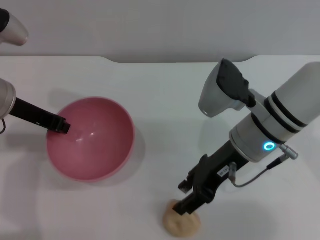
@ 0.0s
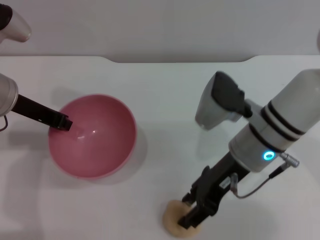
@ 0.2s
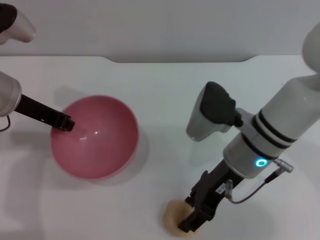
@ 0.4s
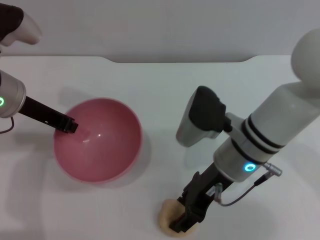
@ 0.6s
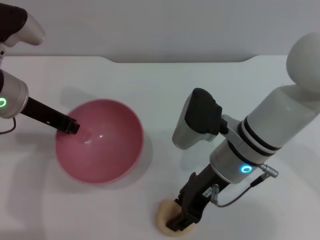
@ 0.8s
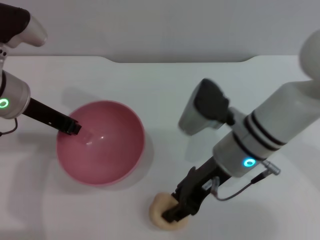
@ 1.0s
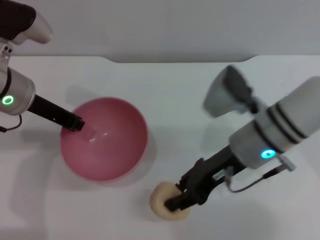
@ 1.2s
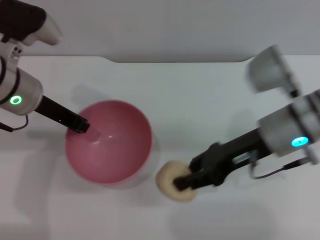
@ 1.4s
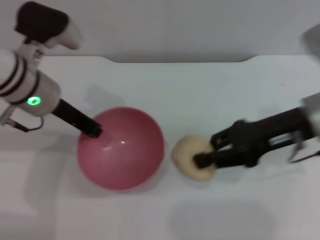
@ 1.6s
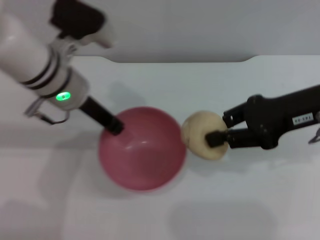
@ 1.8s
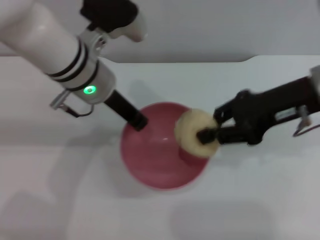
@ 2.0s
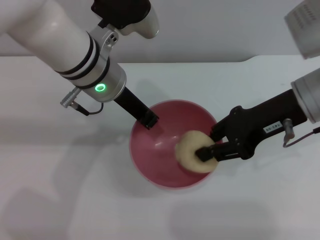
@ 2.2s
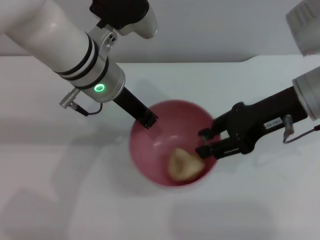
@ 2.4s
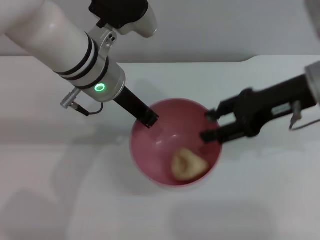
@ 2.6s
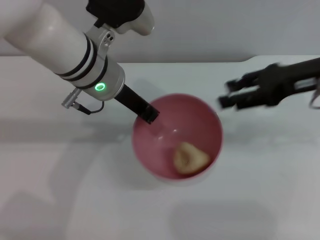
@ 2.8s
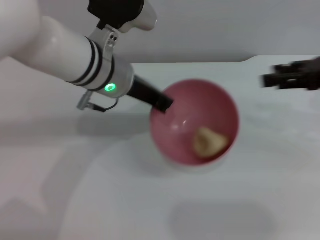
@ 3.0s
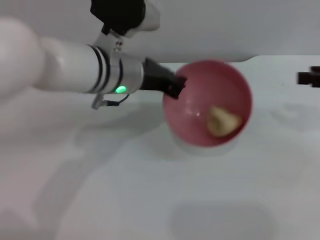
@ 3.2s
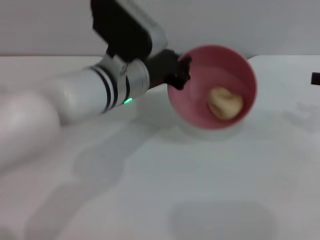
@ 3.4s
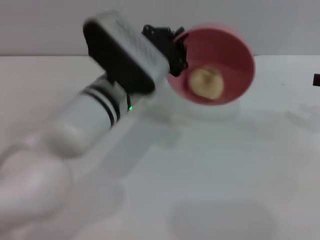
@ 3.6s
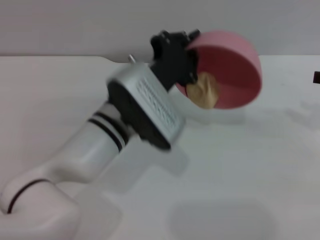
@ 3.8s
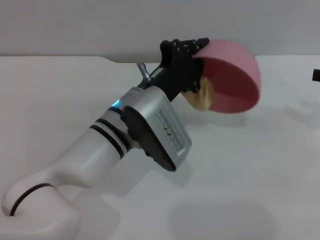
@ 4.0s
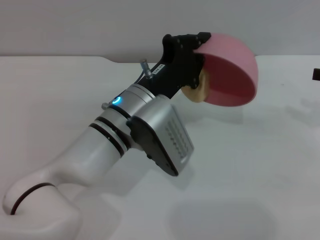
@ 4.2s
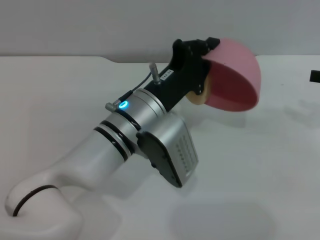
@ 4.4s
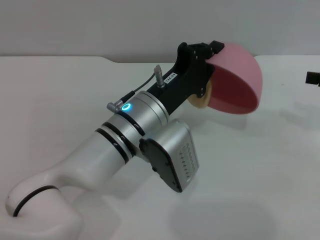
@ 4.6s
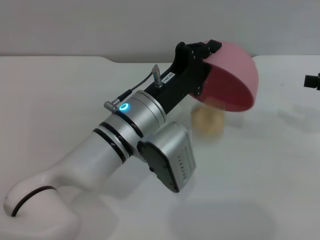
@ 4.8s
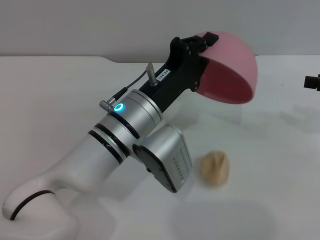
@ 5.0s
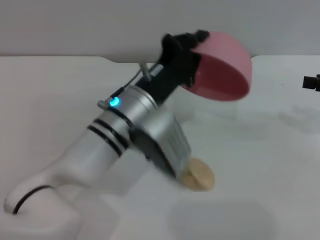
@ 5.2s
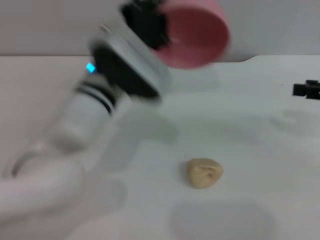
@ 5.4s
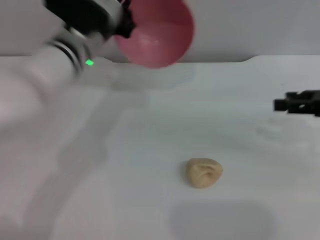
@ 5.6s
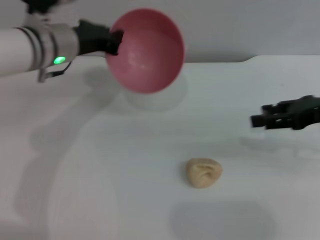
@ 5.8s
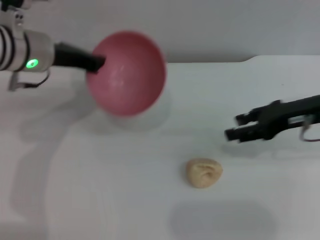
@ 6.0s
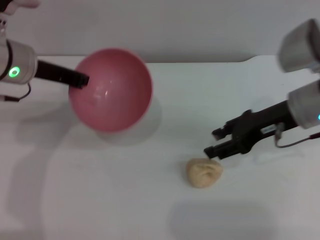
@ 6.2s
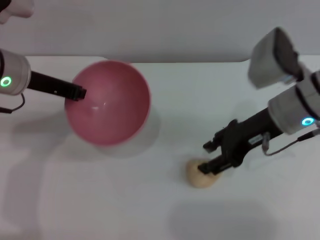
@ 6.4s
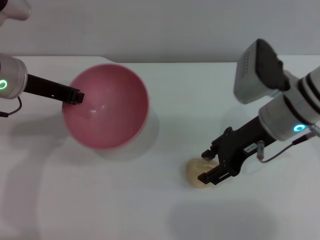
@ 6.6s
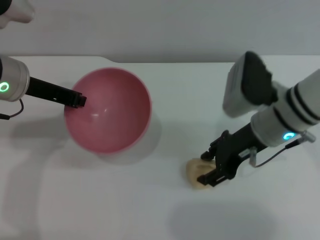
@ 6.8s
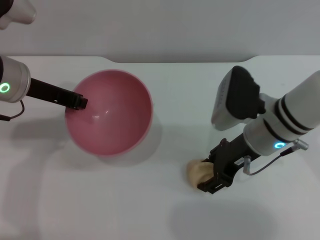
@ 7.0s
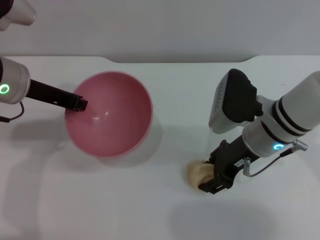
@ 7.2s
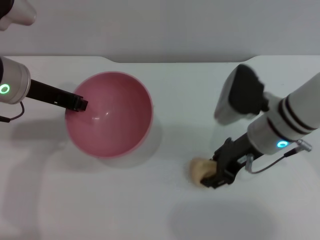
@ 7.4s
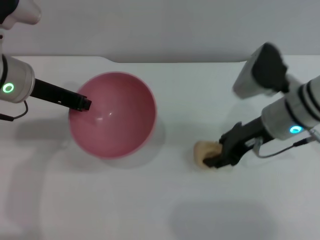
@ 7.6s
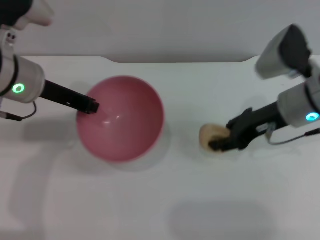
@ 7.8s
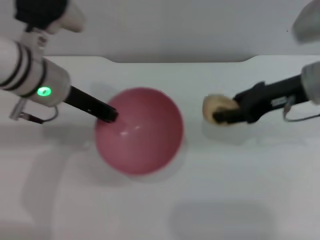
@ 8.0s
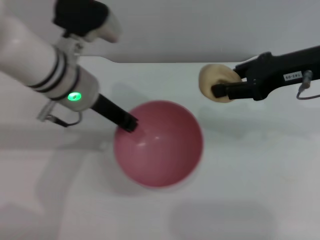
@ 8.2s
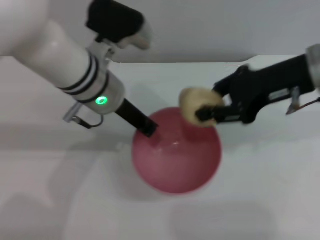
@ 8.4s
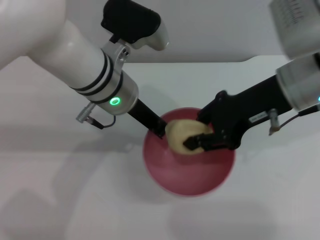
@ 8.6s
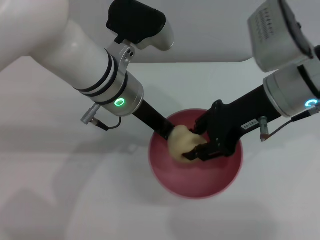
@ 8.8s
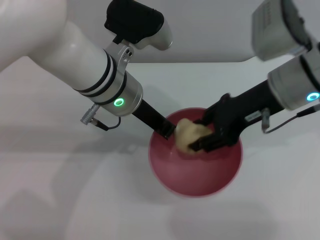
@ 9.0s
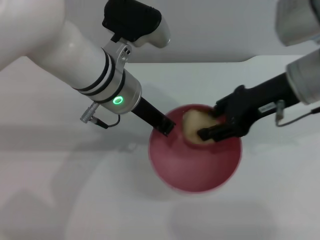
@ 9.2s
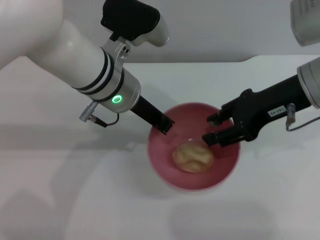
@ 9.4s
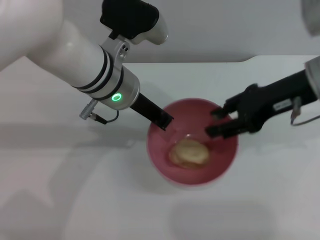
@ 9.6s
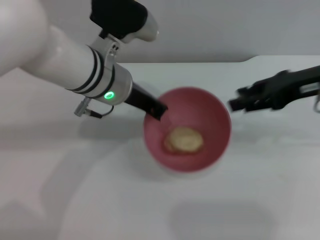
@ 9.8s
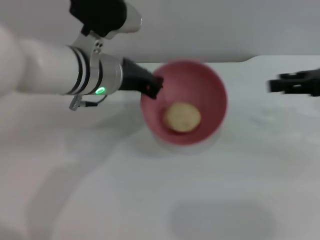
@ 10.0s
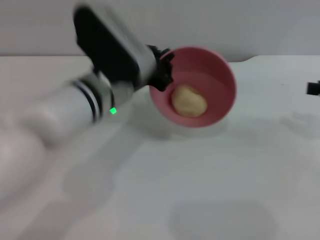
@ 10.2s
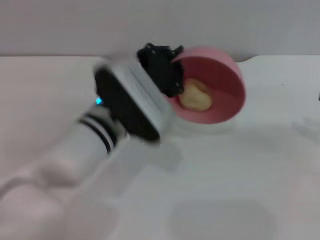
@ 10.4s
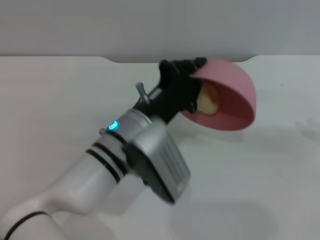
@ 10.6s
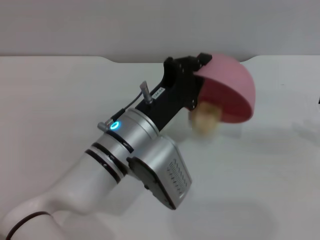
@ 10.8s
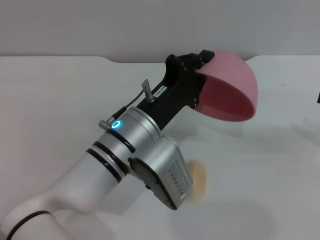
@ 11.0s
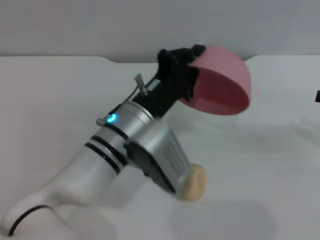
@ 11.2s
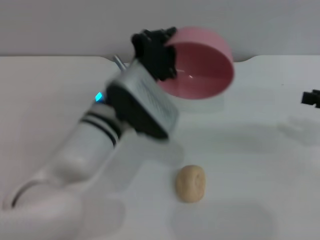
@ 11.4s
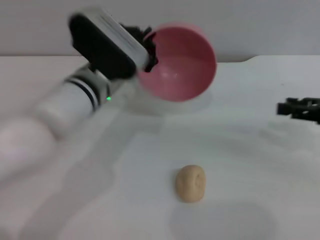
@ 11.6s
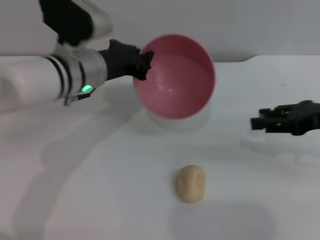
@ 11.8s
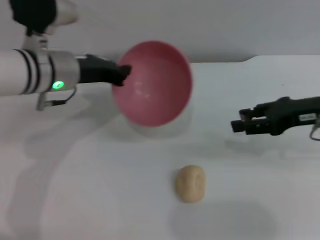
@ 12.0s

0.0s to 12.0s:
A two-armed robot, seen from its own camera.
Task of the whole recording: put the egg yolk pastry into the pink bowl and pour it out repeatedly.
Step, 1.4s to 2.8s: Place the bread into the bowl.
Step, 3.0s to 5.2s: Pour the bread out of the bowl.
Step, 5.4s to 7.6s: Pick up the bread with the right gripper.
Step, 8.0s to 9.6s: Place the bread into the bowl.
Step, 10.0s to 11.2s: Pour the bread out of the bowl.
0.0s to 1.6s: The right gripper is displaced to the right by about 10 cm, and closes, while the left gripper shifts roughly 5 cm to the right.
1.6s to 3.0s: Both grippers travel together to the right, roughly 10 cm. The right gripper opens up.
3.0s to 4.4s: The left gripper goes approximately 10 cm downward and backward; the right gripper travels to the right by approximately 5 cm.
4.4s to 6.0s: The left gripper heads to the left, forward and upward, covering roughly 20 cm. Meanwhile the right gripper heads to the left, covering about 10 cm.
6.0s to 7.6s: The right gripper is displaced to the left by approximately 10 cm.
7.6s to 9.0s: The left gripper travels to the right by about 15 cm; the right gripper shifts some 10 cm upward.
9.0s to 10.4s: The right gripper shifts about 20 cm to the right, while the left gripper heads downward, covering roughly 5 cm.
10.4s to 12.0s: The grippers both shift to the left and forward by about 10 cm.

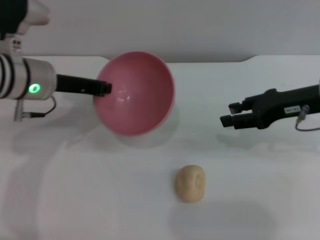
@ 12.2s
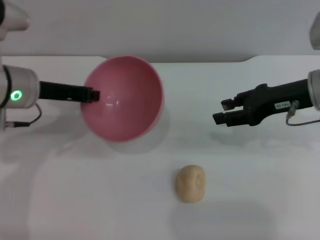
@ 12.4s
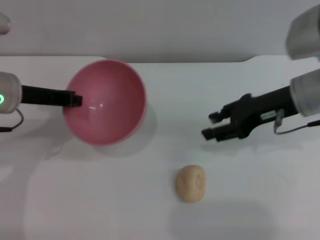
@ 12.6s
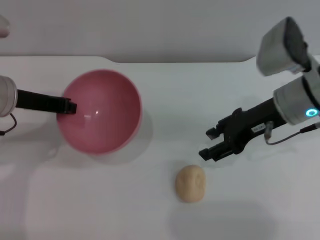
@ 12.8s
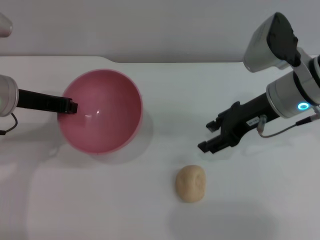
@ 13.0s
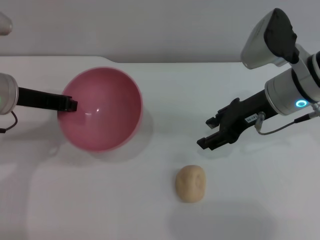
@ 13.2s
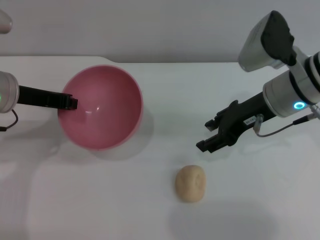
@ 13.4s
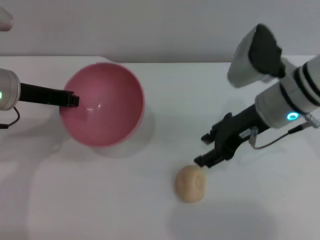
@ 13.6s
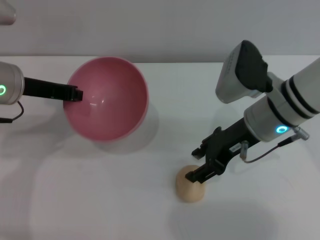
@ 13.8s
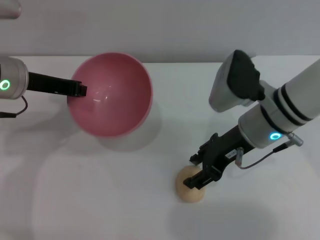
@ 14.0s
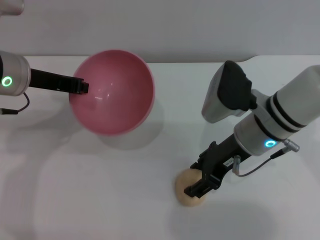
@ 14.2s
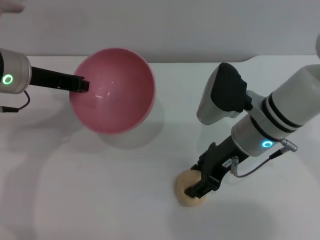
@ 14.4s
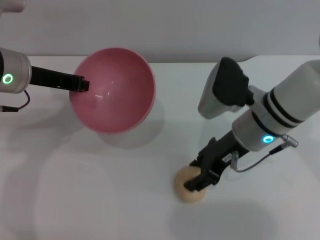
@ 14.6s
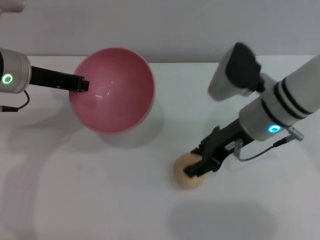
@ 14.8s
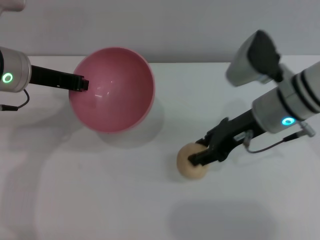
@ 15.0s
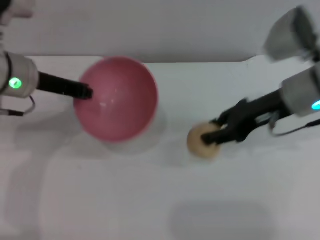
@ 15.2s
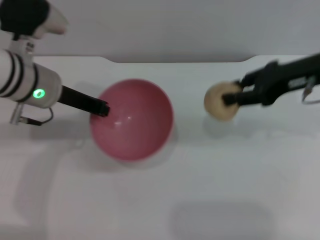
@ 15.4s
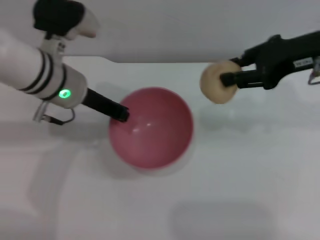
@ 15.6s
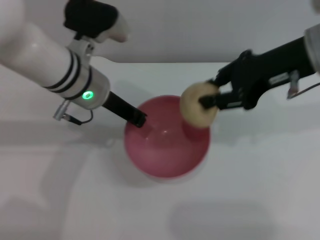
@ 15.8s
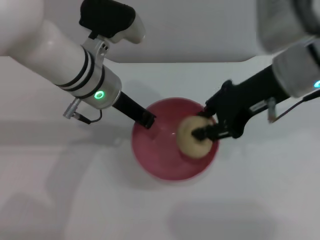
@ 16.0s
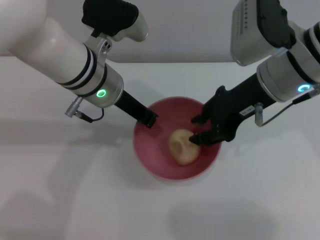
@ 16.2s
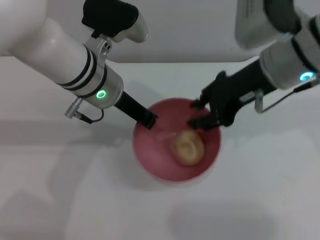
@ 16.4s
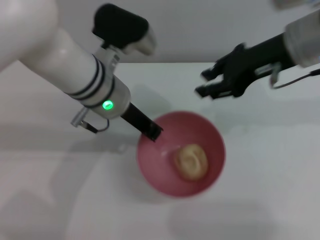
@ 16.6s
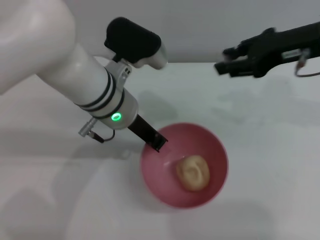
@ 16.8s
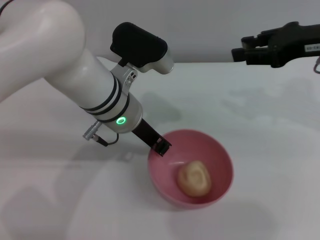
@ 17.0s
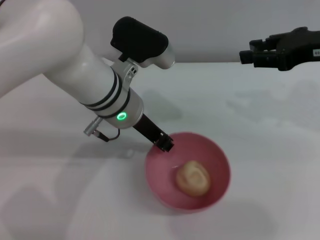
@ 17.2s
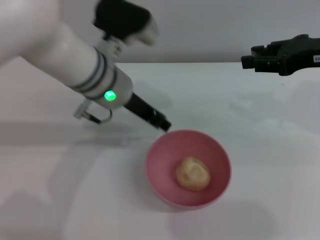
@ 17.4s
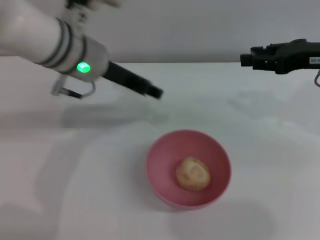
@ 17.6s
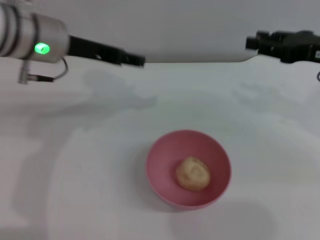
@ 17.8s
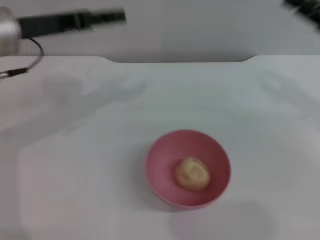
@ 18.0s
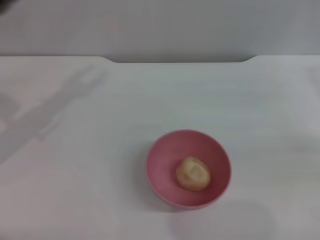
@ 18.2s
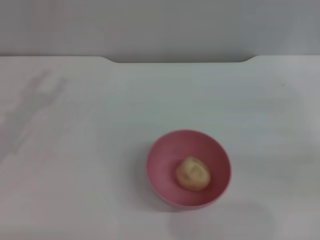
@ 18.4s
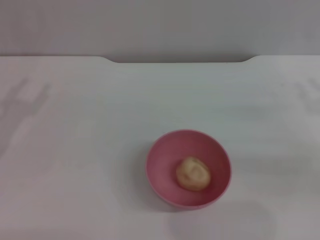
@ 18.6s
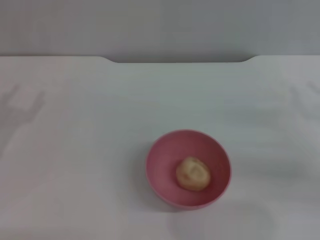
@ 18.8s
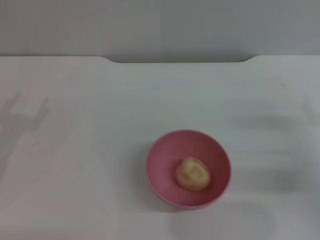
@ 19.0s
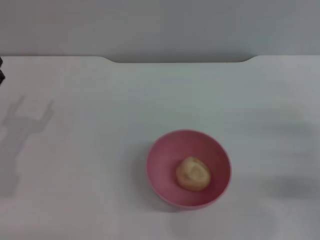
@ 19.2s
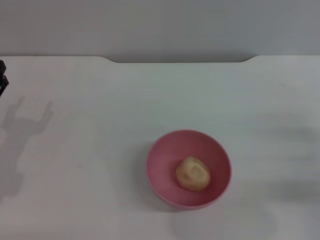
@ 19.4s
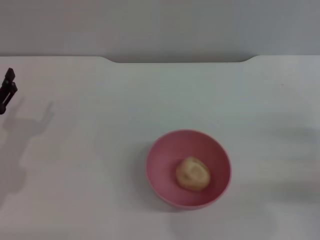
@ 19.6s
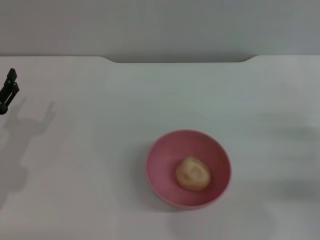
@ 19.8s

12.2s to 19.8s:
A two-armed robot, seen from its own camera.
Task of the whole recording: put the egg yolk pastry into the pink bowl and pour it out repeatedly.
Step, 12.2s to 15.0s: Pick up the bread with the right gripper.
Step, 15.4s to 16.6s: Place the bread into the bowl.
Step, 16.8s to 17.6s: Place the bowl on the table.
12.2s to 13.8s: The right gripper travels to the left by about 10 cm.
13.8s to 15.2s: The right gripper ends up roughly 5 cm from where it was.
15.2s to 16.8s: The left gripper goes roughly 15 cm to the right. Meanwhile the right gripper goes left and right, some 10 cm each way, reversing 2 times.
16.8s to 18.2s: The left gripper goes roughly 20 cm to the left, and opens its fingers, while the right gripper travels to the right, downward and backward by some 15 cm.
18.2s to 19.8s: Both grippers travel together downward and backward, about 15 cm. The right gripper opens up.
